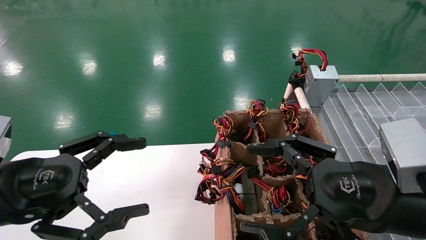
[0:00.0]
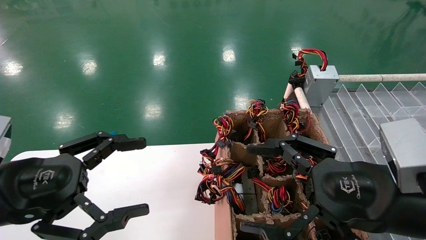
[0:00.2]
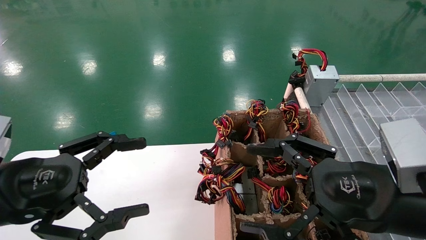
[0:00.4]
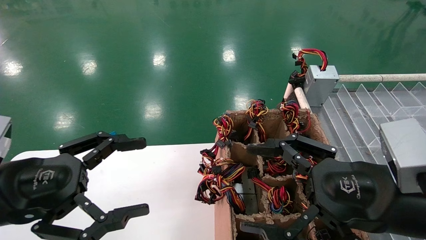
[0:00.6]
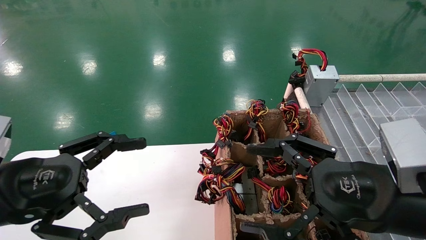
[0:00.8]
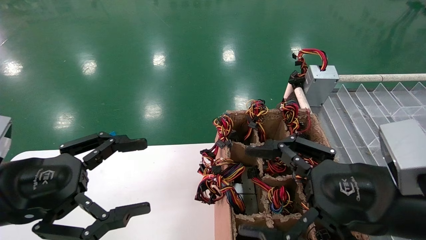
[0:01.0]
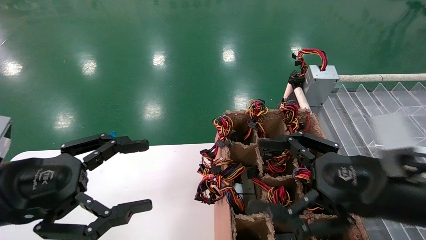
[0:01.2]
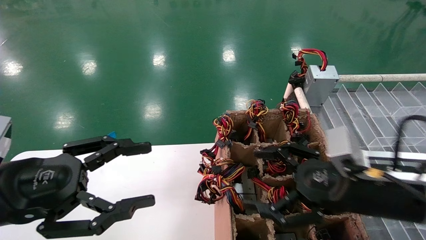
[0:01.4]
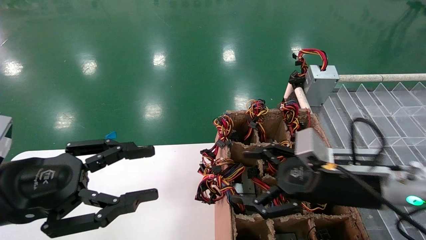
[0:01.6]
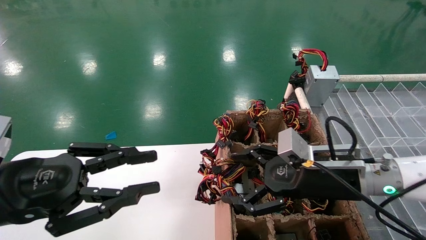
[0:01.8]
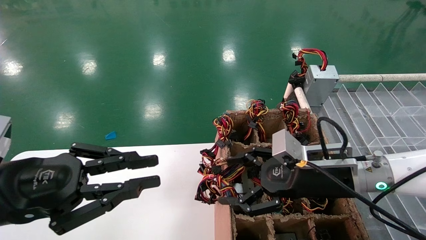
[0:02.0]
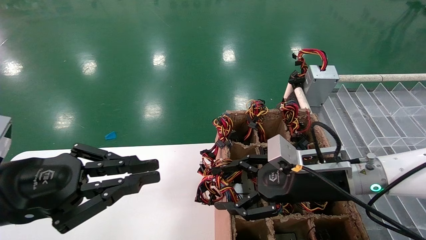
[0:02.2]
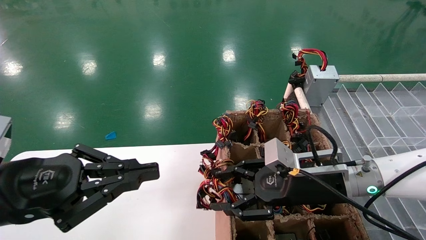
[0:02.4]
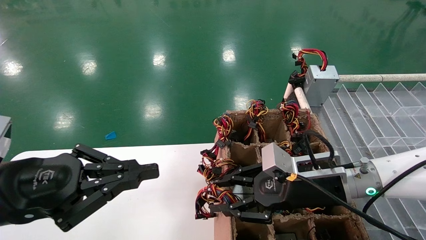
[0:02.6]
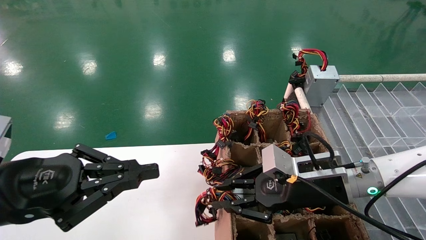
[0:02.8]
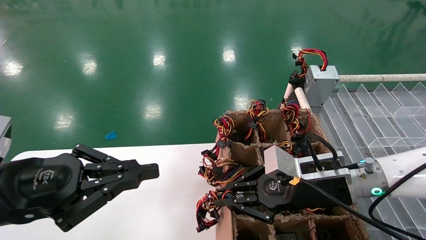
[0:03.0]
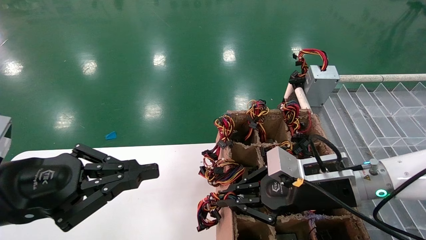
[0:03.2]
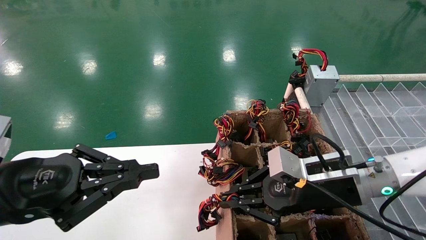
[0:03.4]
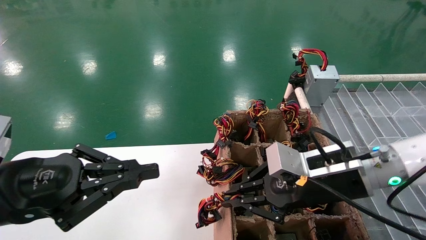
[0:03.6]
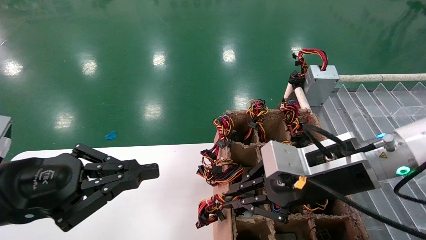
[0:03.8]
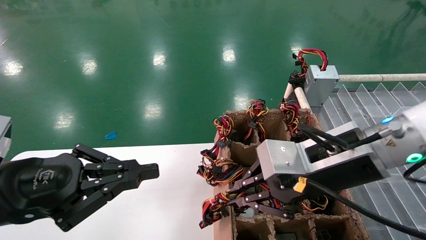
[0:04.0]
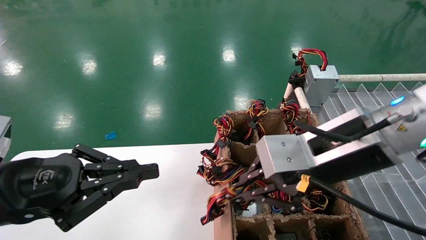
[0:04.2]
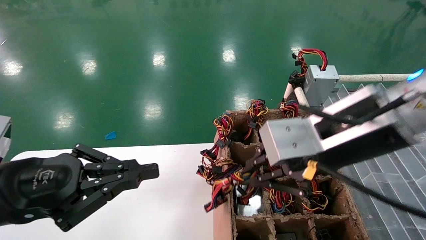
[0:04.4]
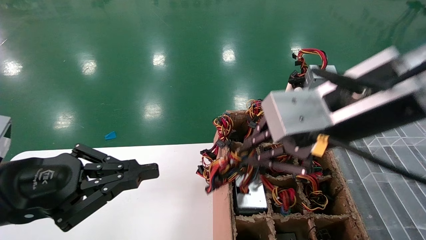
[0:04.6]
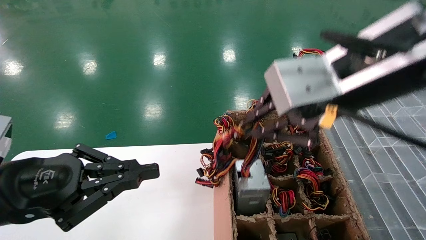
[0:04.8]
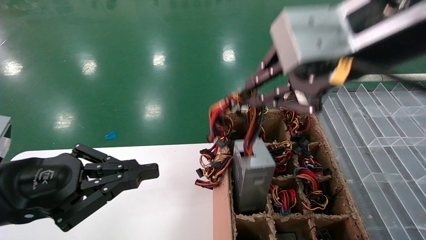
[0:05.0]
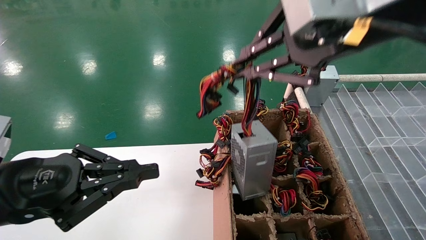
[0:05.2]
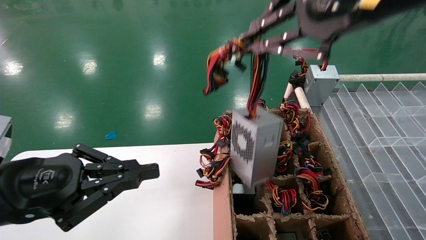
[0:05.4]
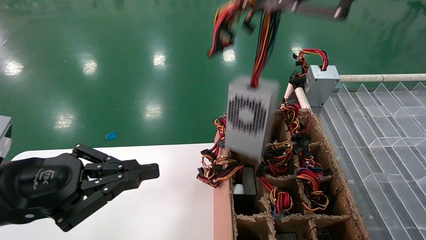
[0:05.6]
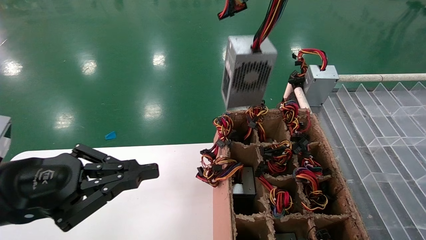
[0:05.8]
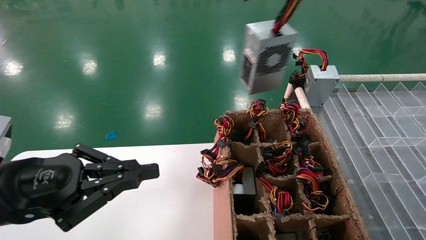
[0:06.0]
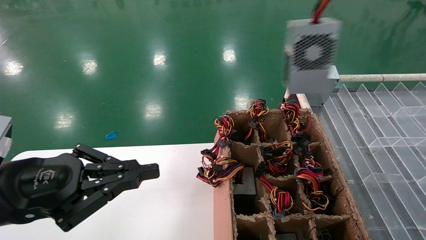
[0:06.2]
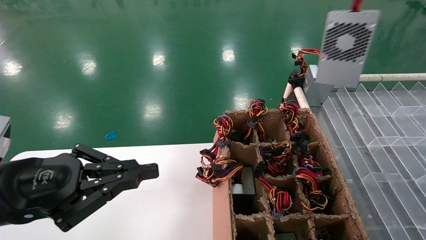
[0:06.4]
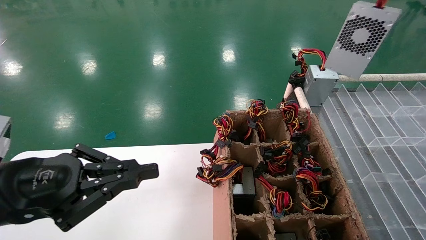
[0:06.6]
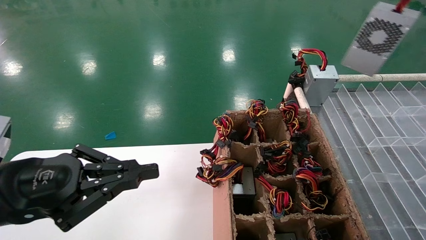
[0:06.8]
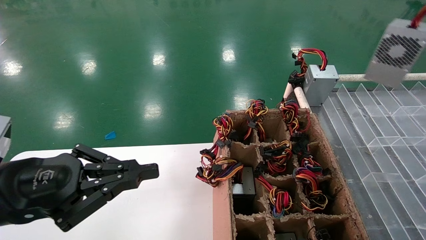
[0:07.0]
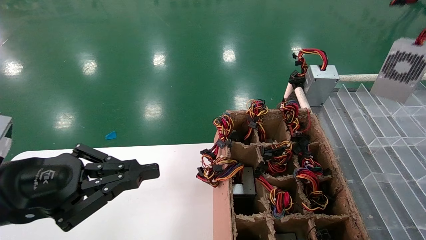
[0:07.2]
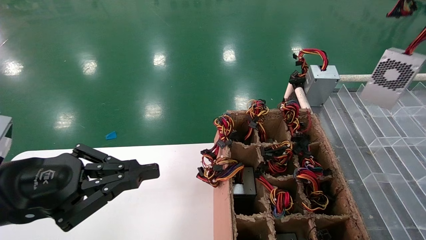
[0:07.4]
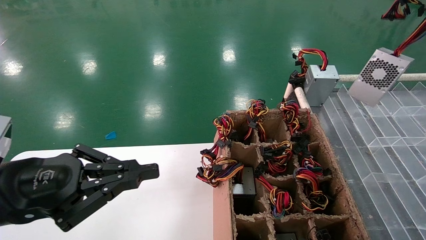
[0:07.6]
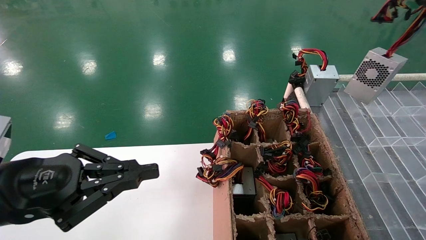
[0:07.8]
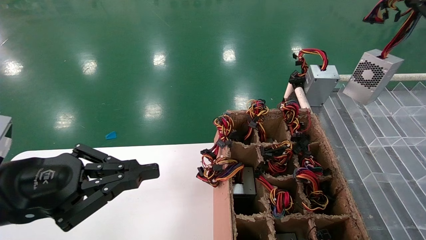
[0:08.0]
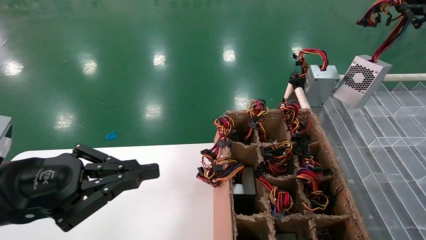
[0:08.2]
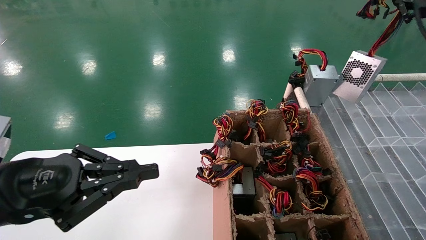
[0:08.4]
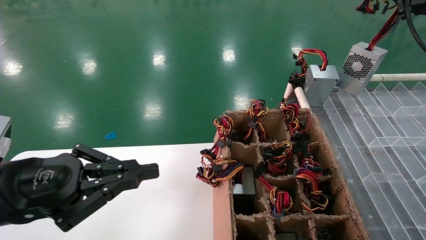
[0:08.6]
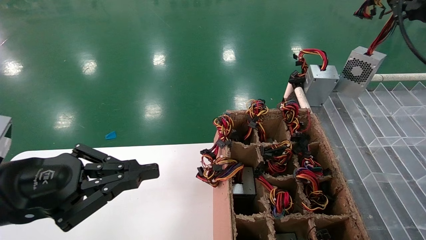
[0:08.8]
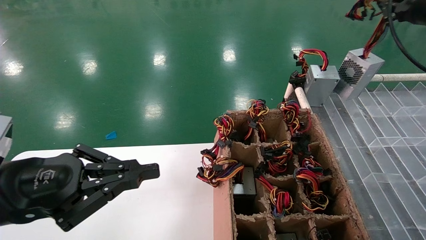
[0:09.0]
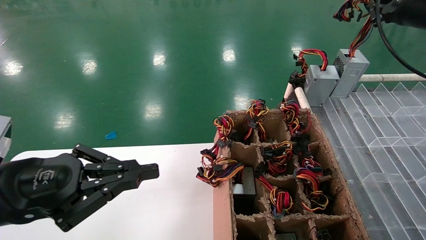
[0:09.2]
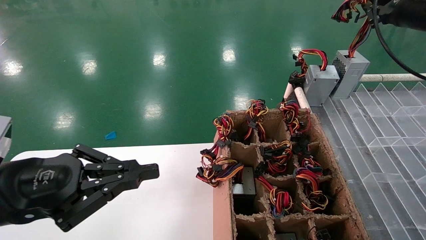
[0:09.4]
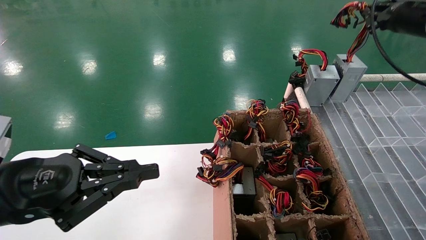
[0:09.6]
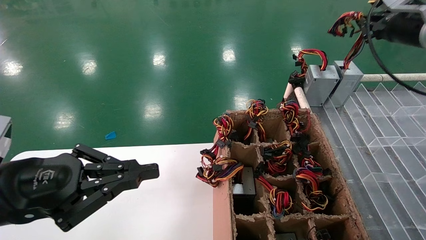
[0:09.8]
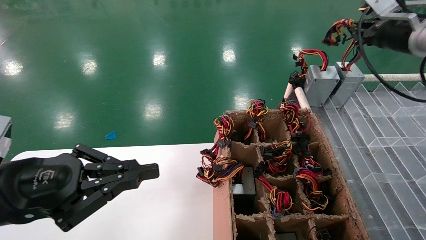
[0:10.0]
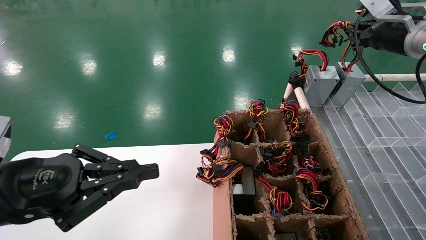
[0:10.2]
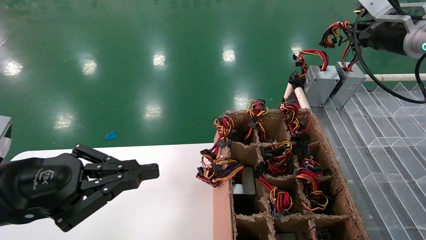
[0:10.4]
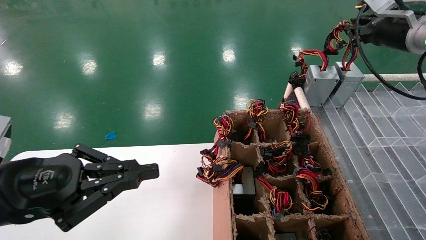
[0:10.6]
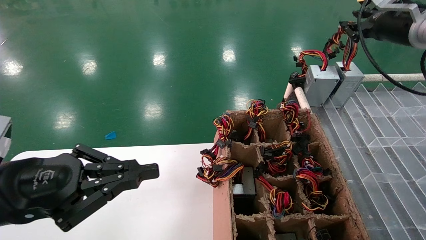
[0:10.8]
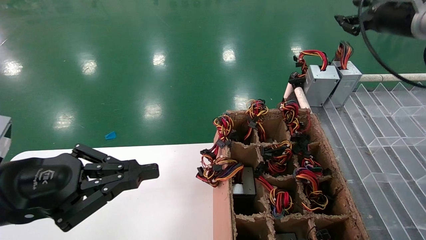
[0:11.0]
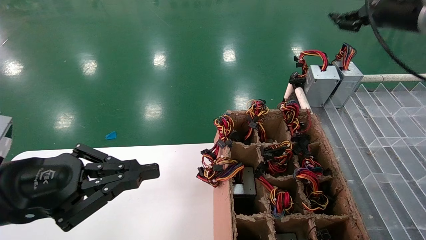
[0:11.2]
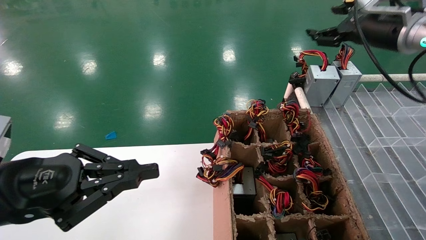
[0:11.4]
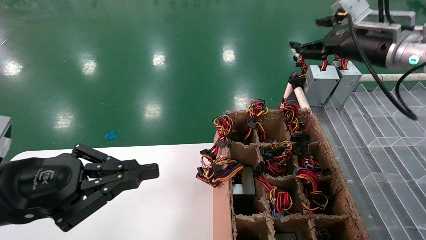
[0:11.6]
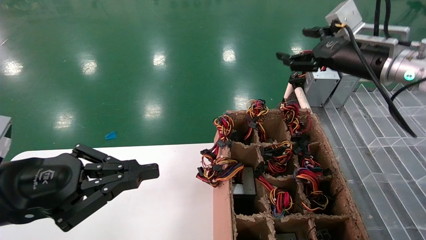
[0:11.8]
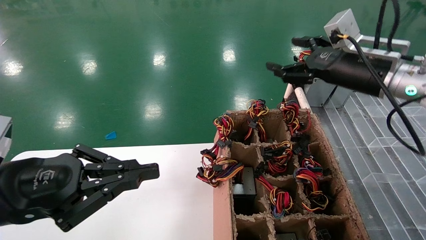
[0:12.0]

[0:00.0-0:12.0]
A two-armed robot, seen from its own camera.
Step, 0:01.4 to 0:03.0: Grab the main unit power supply from the containment box.
Step, 0:03.2 to 0:11.4: Place the main unit power supply in the designated area.
0:00.0 to 0:01.6: The right gripper is displaced forward by about 10 cm.
0:01.6 to 0:03.0: The right gripper closes its fingers. The left gripper closes its fingers.
0:03.0 to 0:04.4: The right gripper heads upward and backward, covering approximately 20 cm.
0:04.4 to 0:06.0: The right gripper goes some 20 cm upward.
0:06.0 to 0:07.6: The right gripper is displaced to the right and forward by approximately 25 cm.
0:07.6 to 0:09.0: The right gripper travels forward and to the left by about 10 cm.
0:09.0 to 0:10.4: The right gripper changes place by approximately 5 cm.
0:10.4 to 0:12.0: The right gripper travels to the left, downward and backward by approximately 15 cm, and opens up.

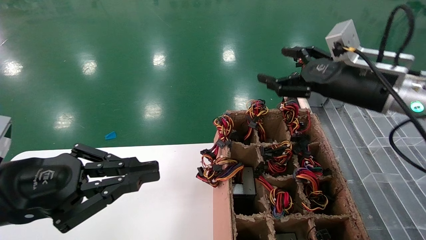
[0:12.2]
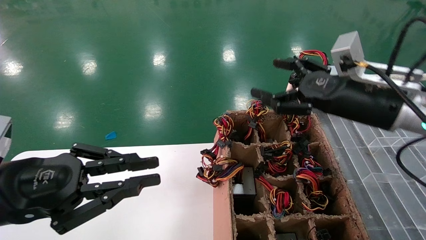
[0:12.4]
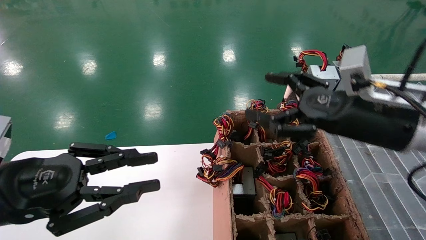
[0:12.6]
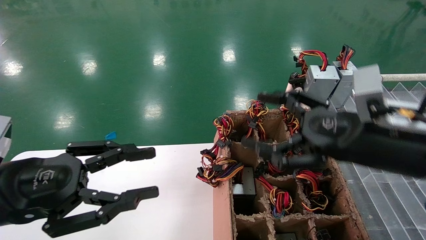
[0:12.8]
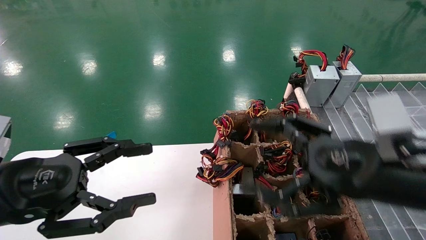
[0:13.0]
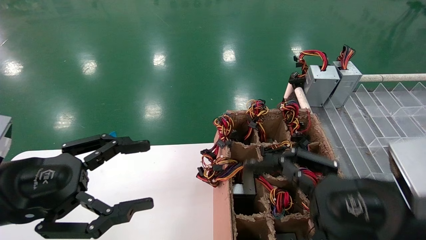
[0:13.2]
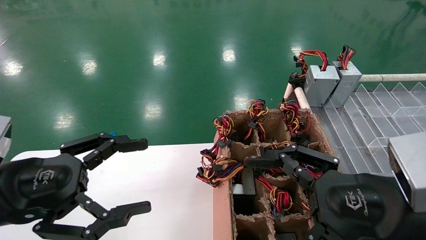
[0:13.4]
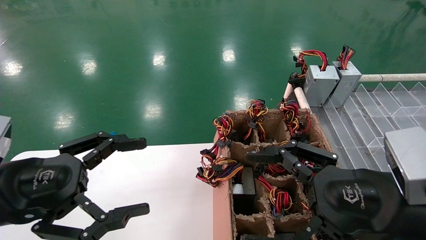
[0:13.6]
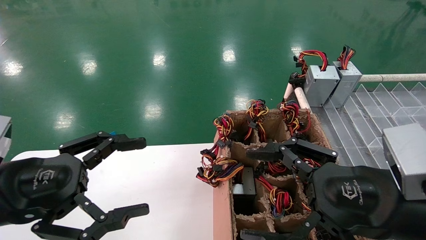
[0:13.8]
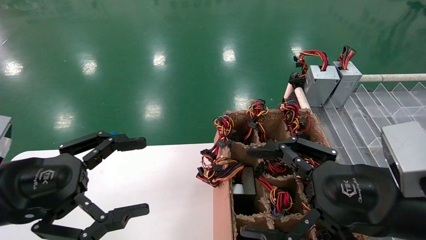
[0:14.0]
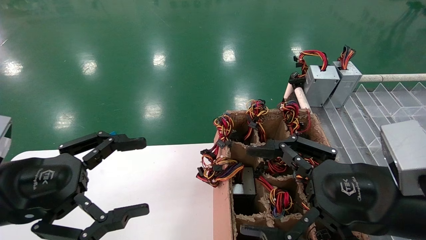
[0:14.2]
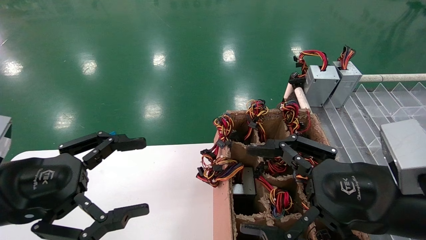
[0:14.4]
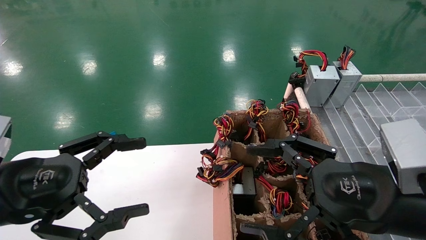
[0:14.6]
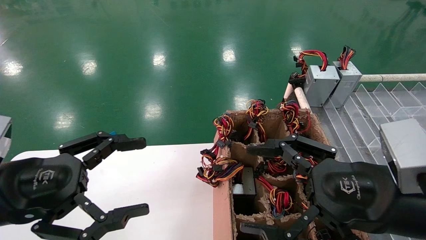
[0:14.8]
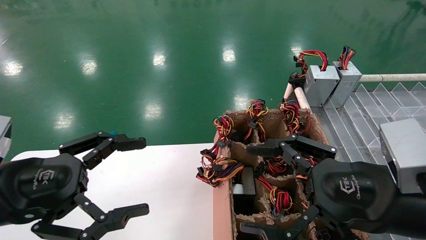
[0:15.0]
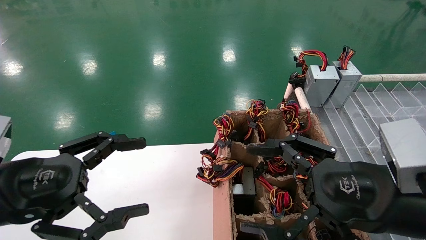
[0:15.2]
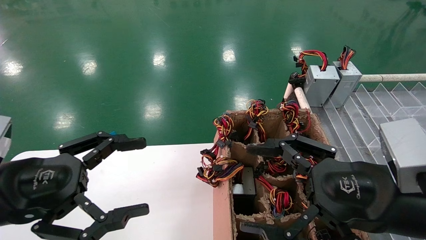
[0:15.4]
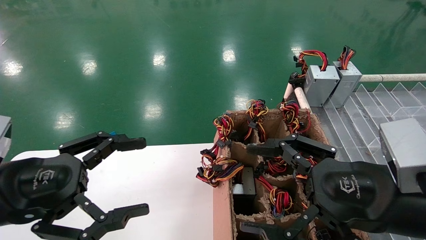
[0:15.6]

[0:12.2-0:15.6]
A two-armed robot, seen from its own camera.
0:12.2 to 0:13.8: The right gripper shifts about 20 cm backward and downward. Meanwhile the left gripper opens up.
0:13.8 to 0:15.6: The two grippers keep their place.

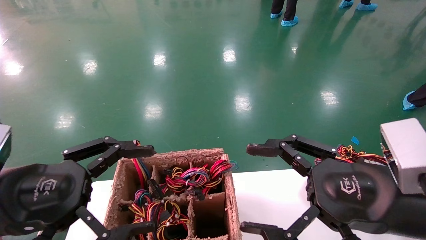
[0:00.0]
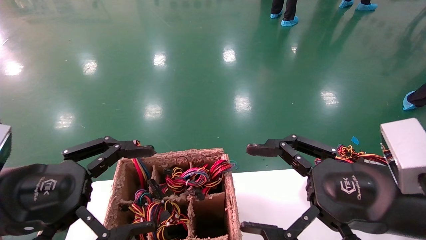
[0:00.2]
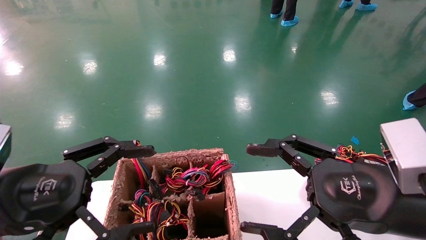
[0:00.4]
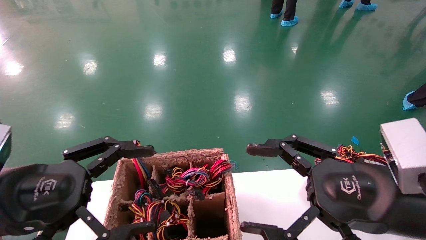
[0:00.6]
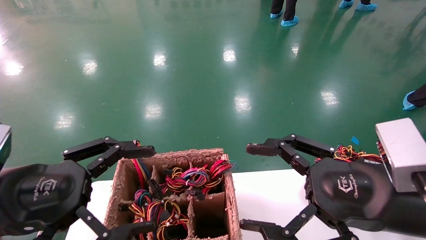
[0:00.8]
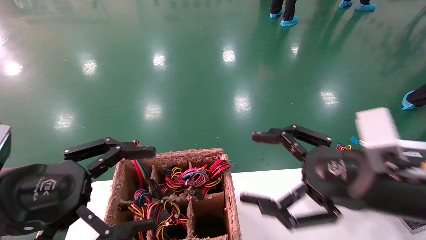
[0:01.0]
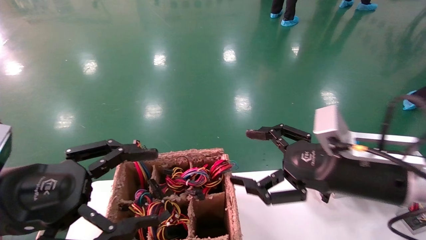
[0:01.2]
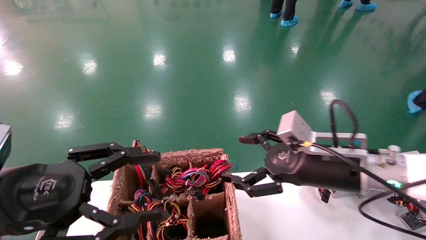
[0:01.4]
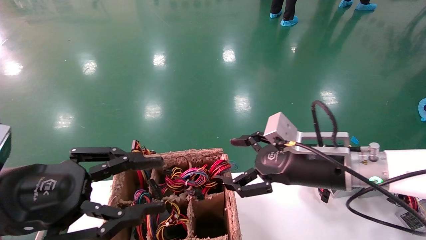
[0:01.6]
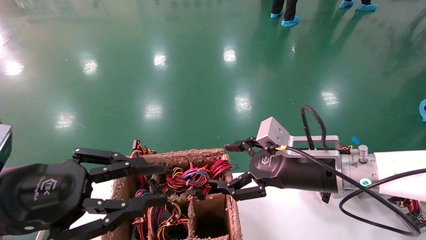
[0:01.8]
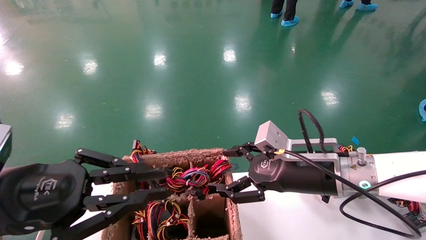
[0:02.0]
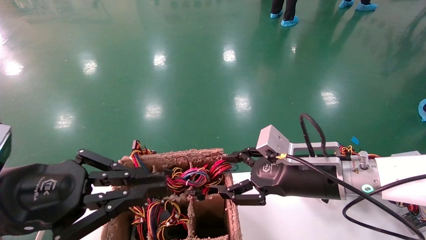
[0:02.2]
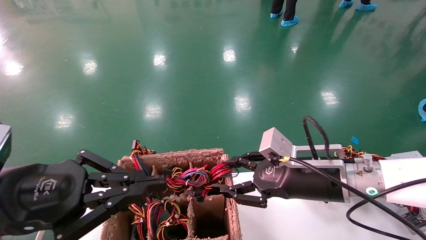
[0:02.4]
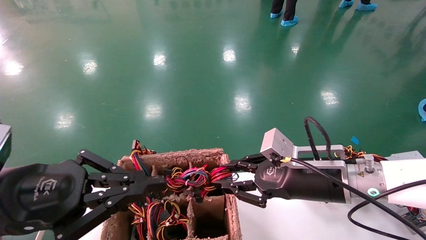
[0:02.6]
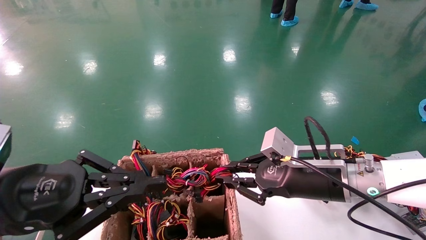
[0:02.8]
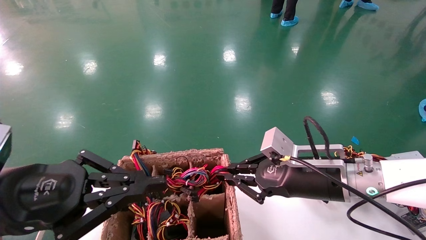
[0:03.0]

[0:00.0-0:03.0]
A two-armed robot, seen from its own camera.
0:00.0 to 0:01.6: The right gripper moves forward, some 10 cm; the left gripper closes up.
0:01.6 to 0:03.0: The right gripper closes; the left gripper closes up.
